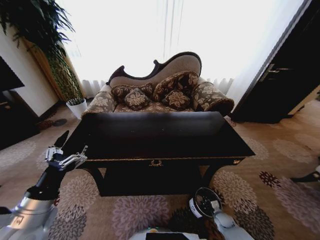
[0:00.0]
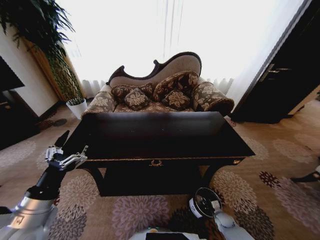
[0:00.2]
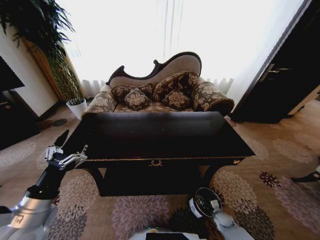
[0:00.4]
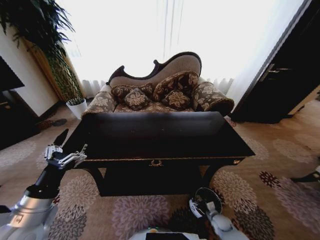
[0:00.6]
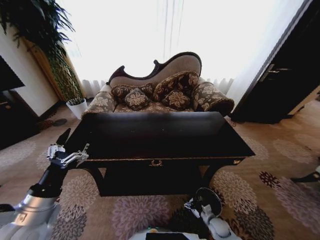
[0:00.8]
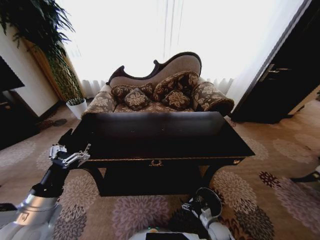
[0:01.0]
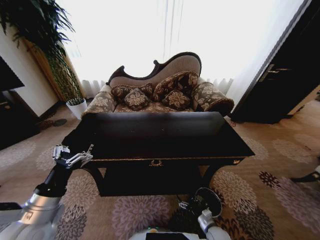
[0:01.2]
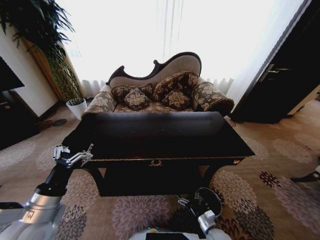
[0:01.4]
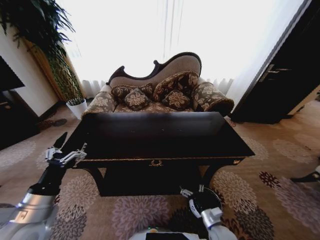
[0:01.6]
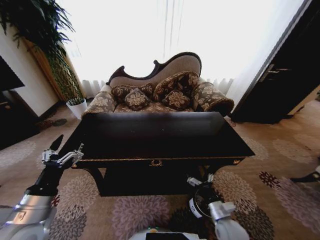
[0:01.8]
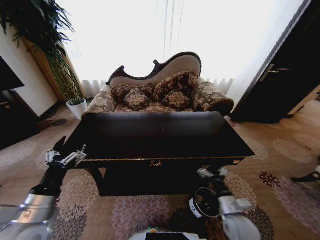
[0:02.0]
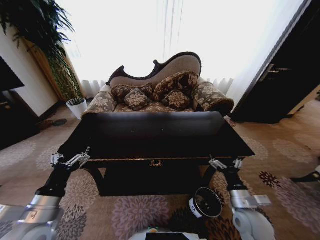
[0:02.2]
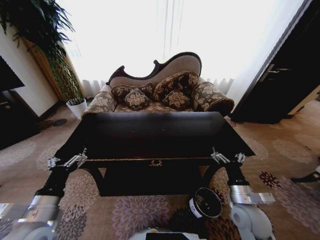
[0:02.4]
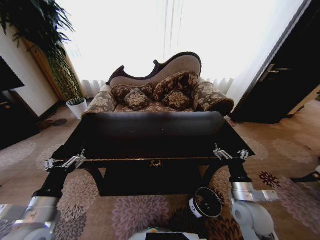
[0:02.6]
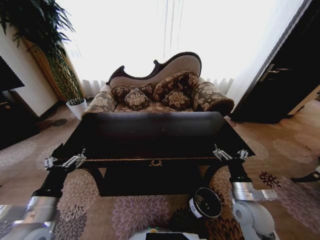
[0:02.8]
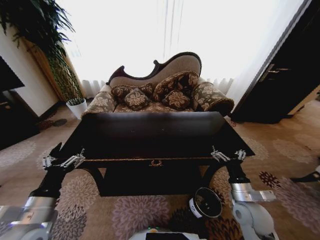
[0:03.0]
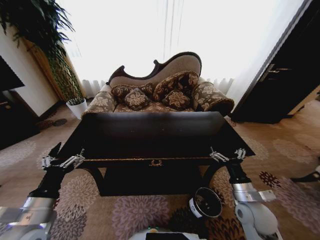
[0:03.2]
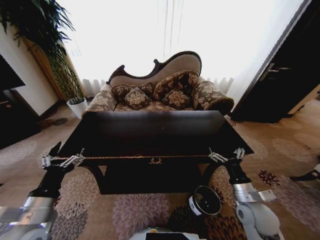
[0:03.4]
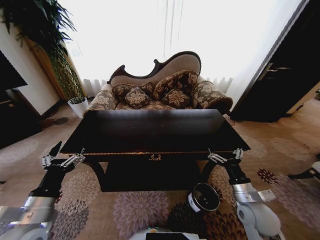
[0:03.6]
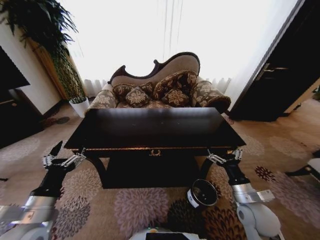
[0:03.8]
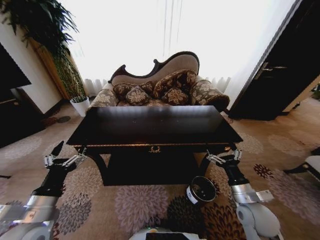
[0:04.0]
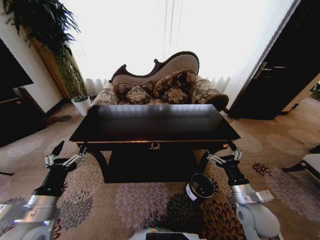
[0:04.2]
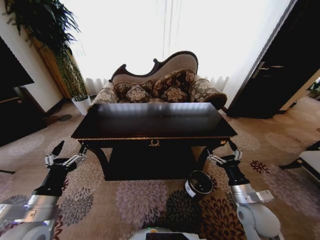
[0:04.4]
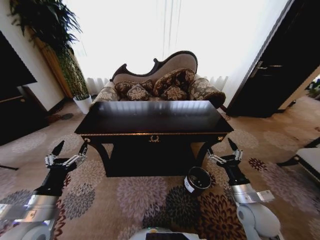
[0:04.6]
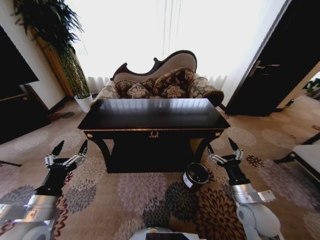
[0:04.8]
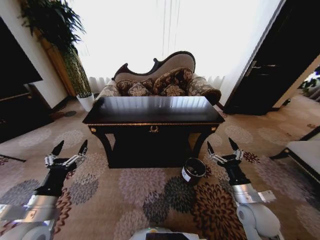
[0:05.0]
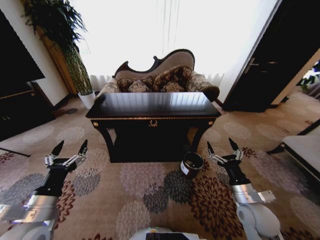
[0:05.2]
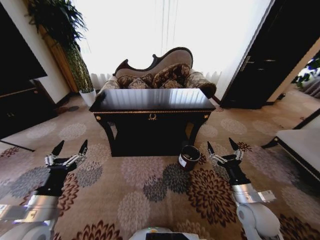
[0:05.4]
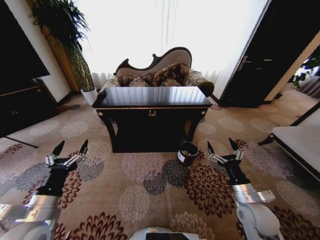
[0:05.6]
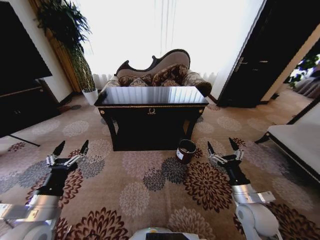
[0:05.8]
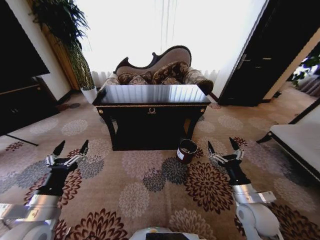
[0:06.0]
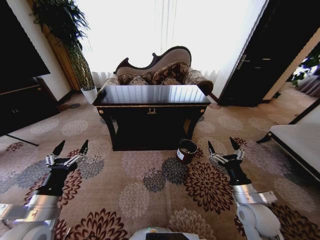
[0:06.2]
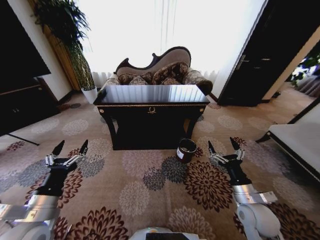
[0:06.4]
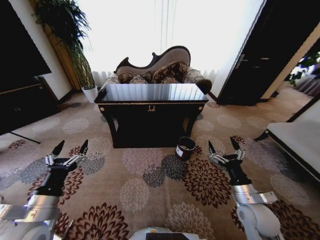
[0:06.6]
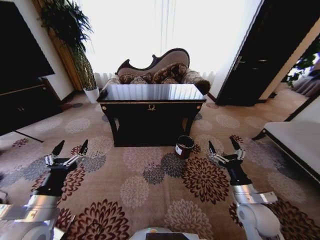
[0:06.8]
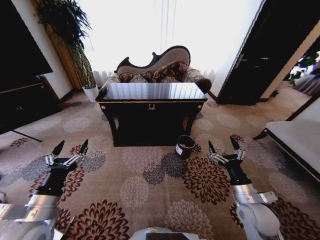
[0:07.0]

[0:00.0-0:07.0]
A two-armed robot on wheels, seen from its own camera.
Task of the whole recording: Move to the front of the table and place the trash on the table into the trash bin.
0:00.0 to 0:01.4: The right gripper is displaced to the left, upward and backward by some 20 cm, and opens its fingers.
0:01.4 to 0:02.8: The right gripper goes some 20 cm upward.
